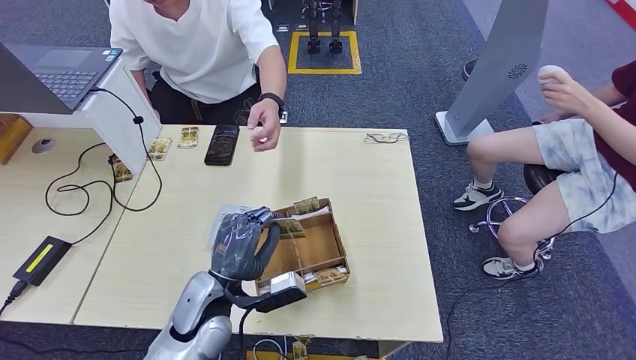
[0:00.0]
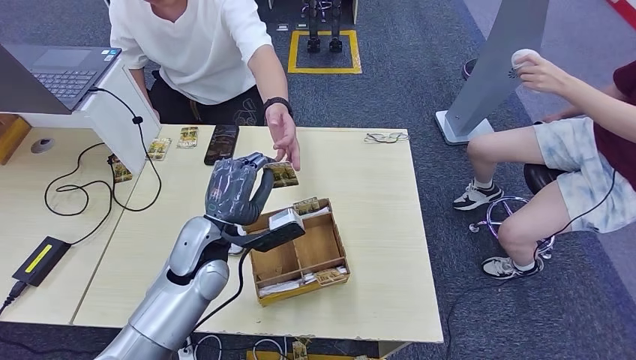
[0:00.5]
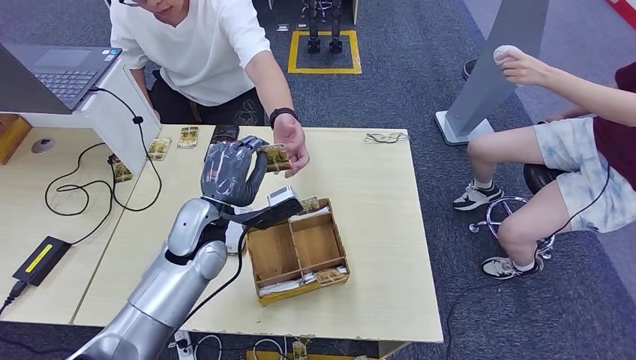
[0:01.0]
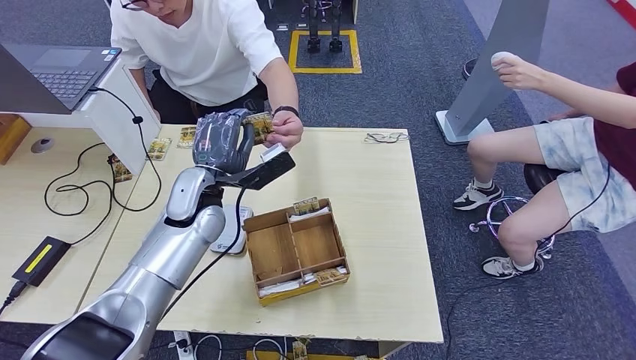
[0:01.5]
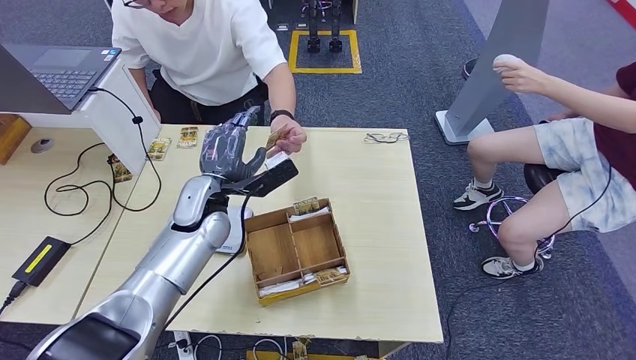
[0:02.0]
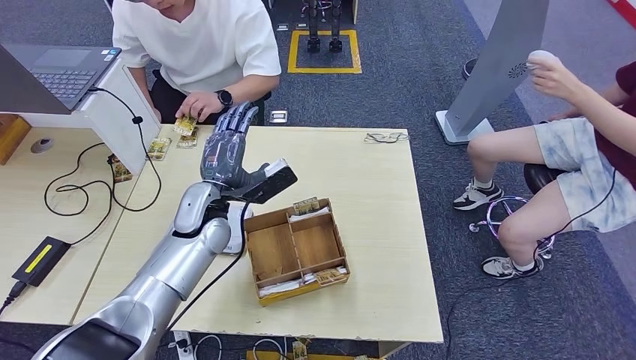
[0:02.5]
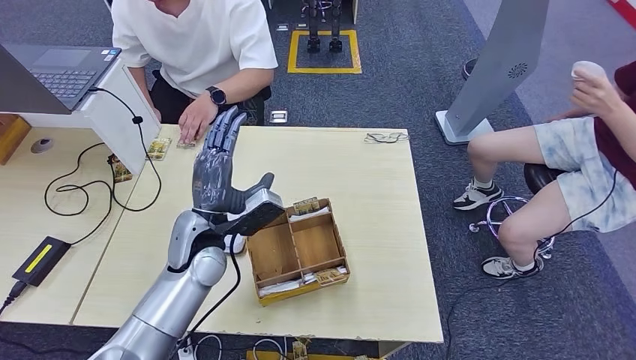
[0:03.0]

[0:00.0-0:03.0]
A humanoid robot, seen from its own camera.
Step, 0:00.0 to 0:03.0: Hand the room key to the person.
0:00.0 to 0:01.5: The left hand shifts roughly 15 cm forward and upward.
0:01.5 to 0:03.0: The left hand heads backward, covering roughly 5 cm.
